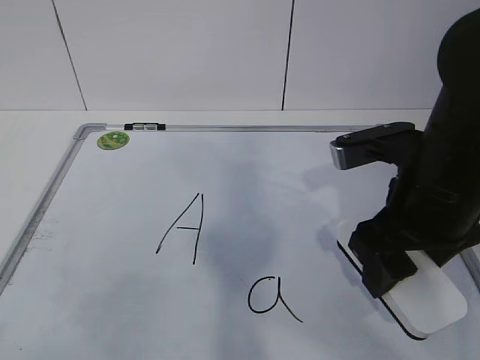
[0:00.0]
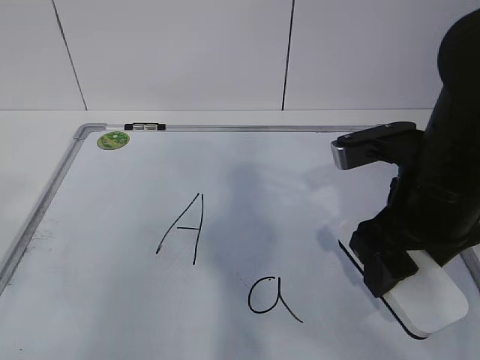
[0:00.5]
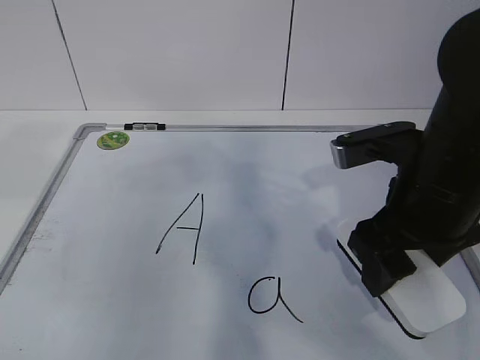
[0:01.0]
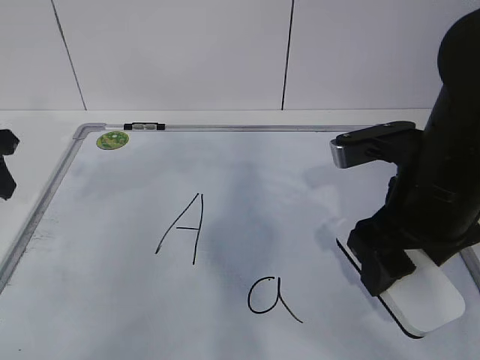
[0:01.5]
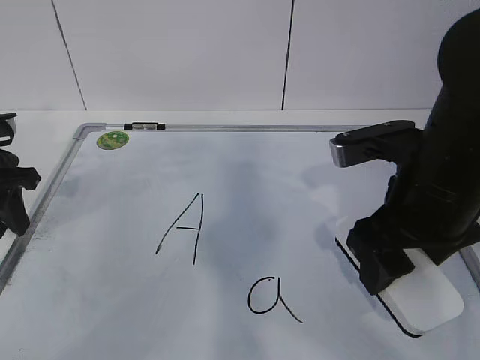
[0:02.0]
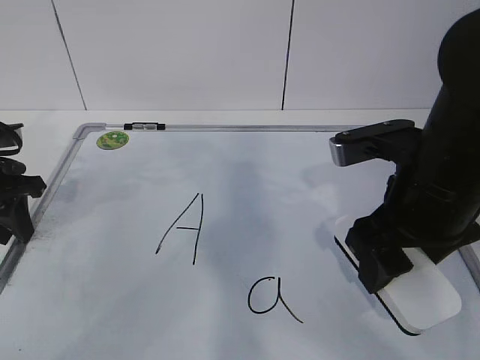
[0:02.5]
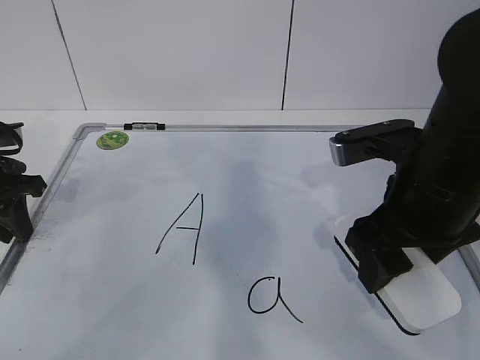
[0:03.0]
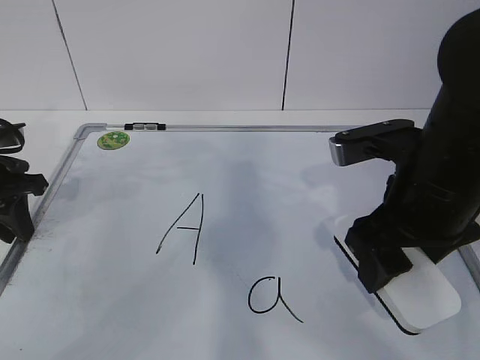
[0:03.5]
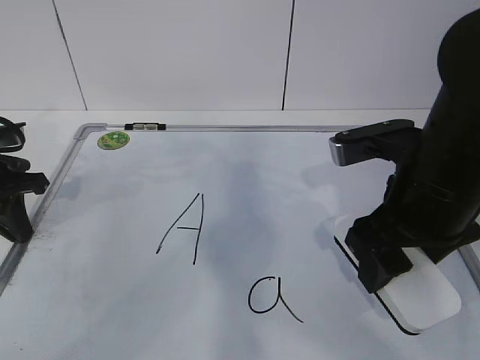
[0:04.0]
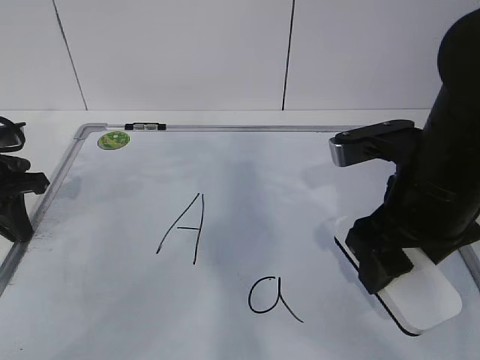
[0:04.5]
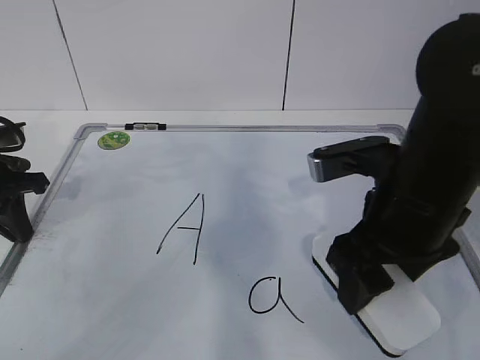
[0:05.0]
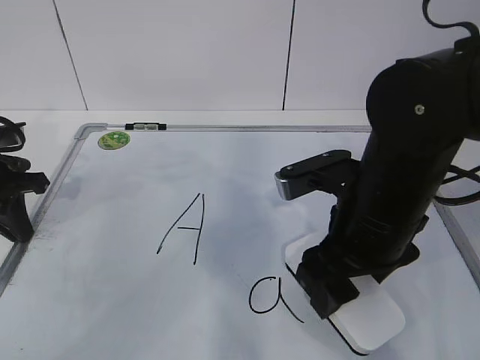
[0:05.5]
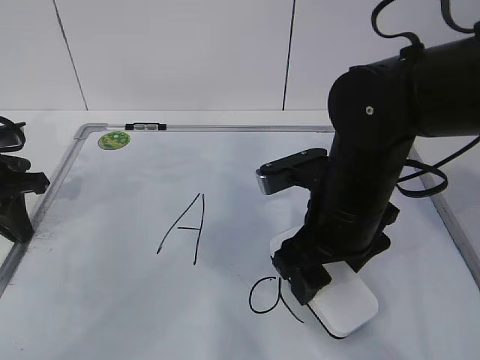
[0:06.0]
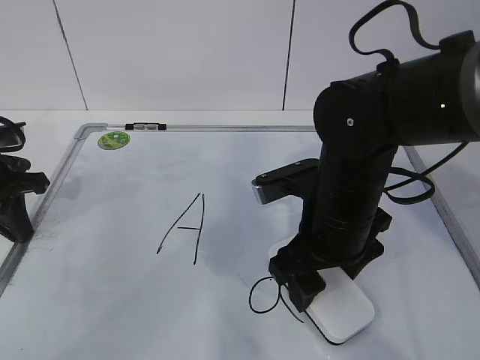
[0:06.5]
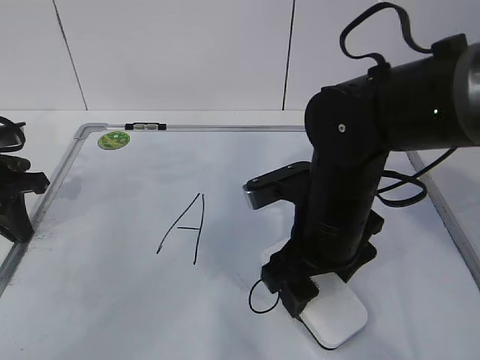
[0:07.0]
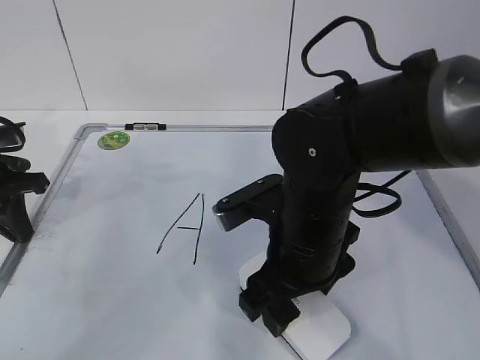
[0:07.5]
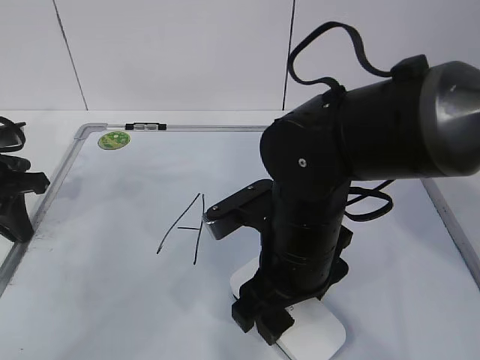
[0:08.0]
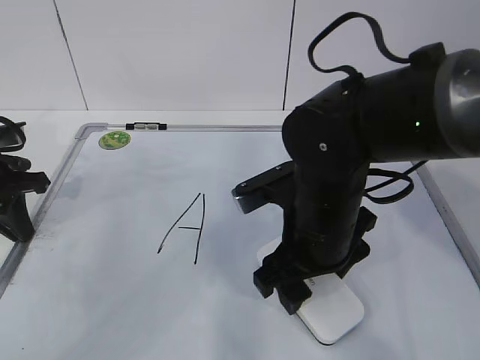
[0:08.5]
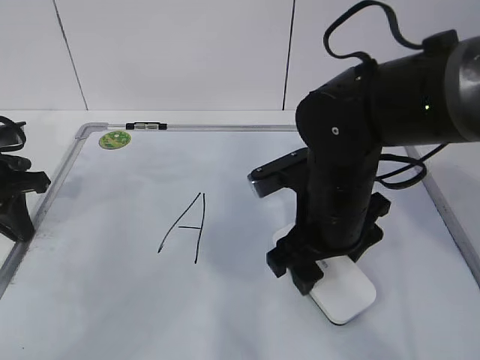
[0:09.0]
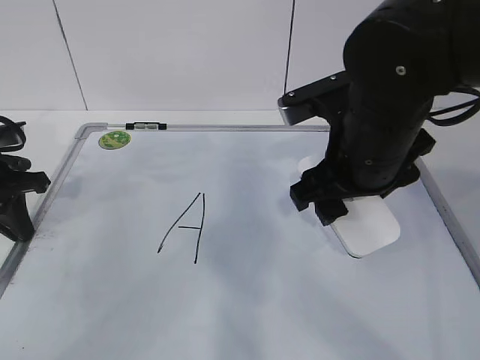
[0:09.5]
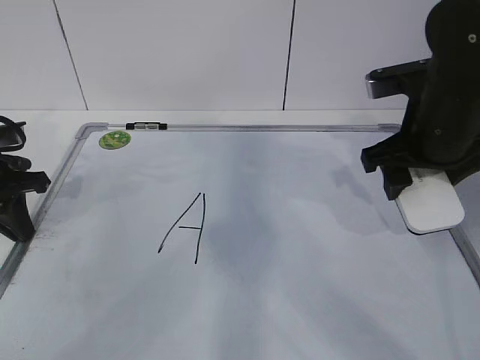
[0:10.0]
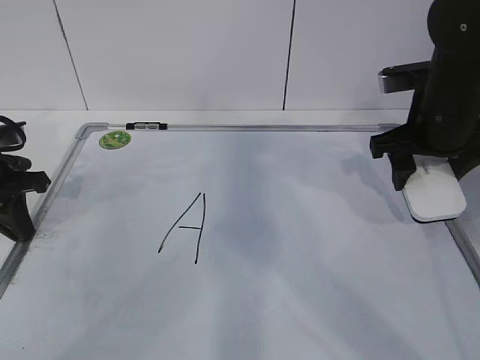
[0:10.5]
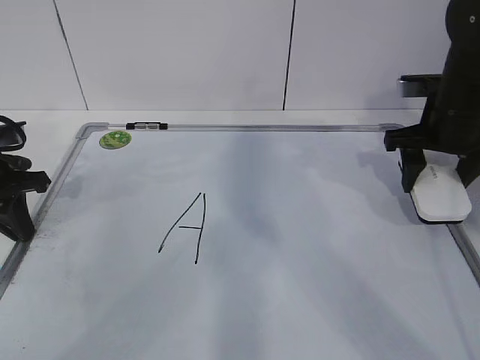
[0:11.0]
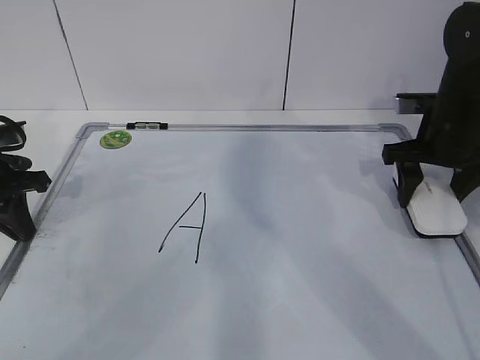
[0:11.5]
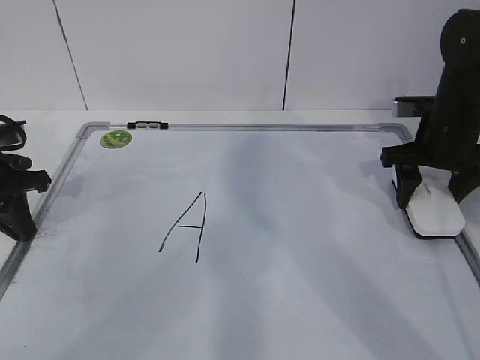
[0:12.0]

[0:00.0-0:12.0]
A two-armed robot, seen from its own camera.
Task of the whole recording: pick up the eraser on the blackboard and erase the letter "a".
Step, 0:02.0 to 0:05.5: Erase the letter a with your right hand.
Step, 0:06.0 to 0:09.5: Put down the eraser with your right hand.
0:00.0 to 0:02.0: The left gripper is displaced forward by approximately 35 cm.
0:02.0 to 0:04.0: The left gripper closes.
0:04.0 to 0:06.0: The right gripper shifts roughly 5 cm to the left.
0:06.0 to 0:08.0: The right gripper moves some 5 cm.
0:08.0 to 0:10.0: The right gripper shifts about 20 cm to the right, forward and upward.
0:10.0 to 0:12.0: The right gripper shifts approximately 10 cm forward, to the right and downward.

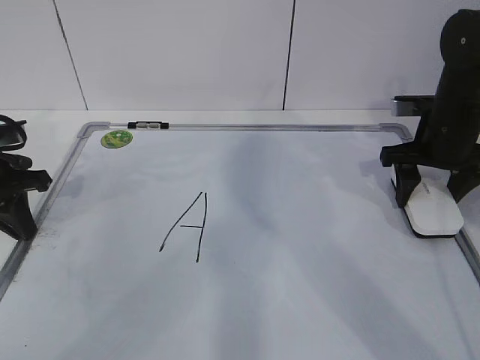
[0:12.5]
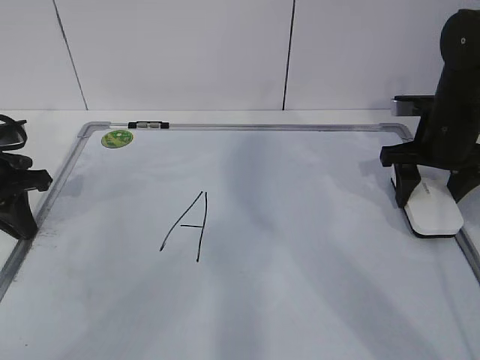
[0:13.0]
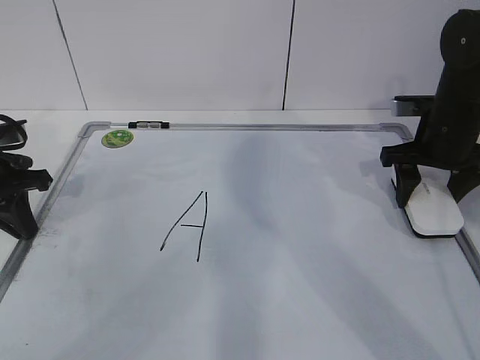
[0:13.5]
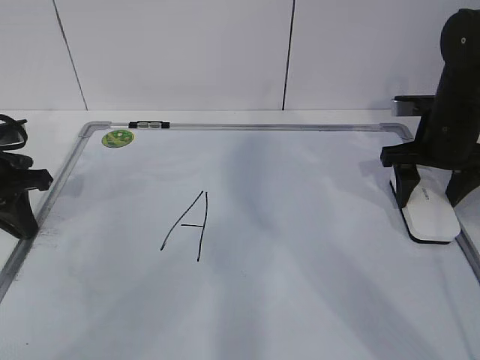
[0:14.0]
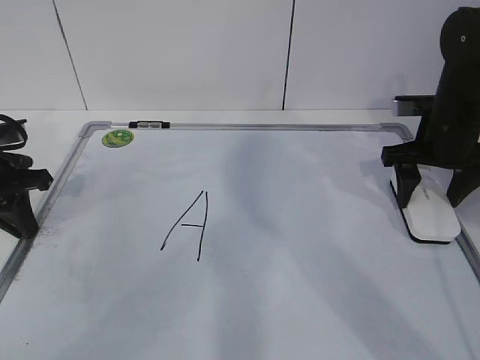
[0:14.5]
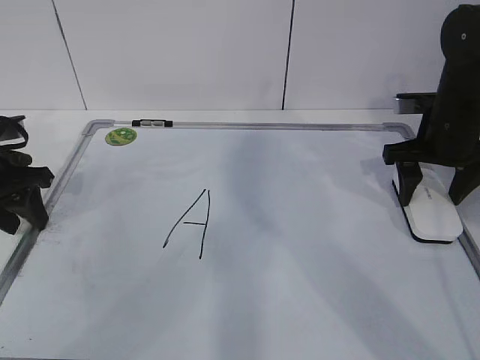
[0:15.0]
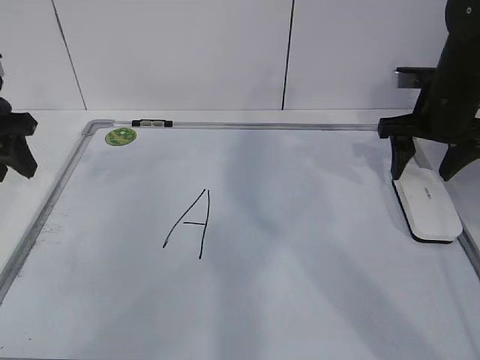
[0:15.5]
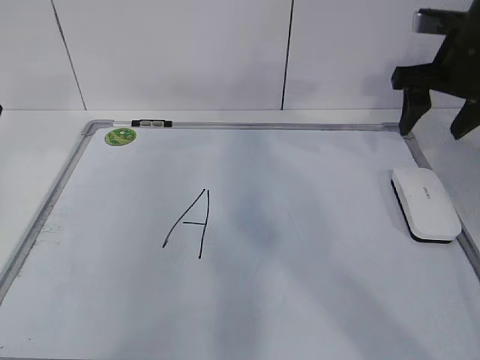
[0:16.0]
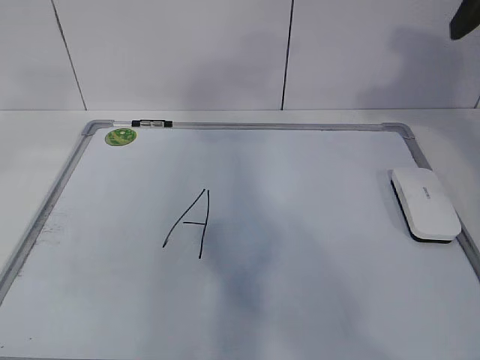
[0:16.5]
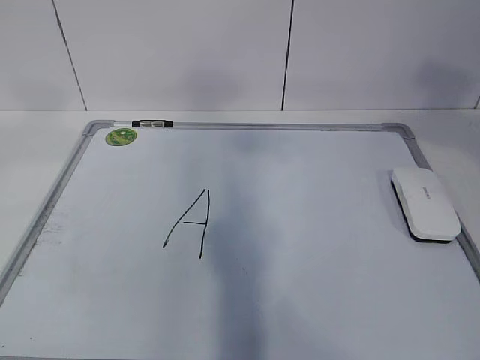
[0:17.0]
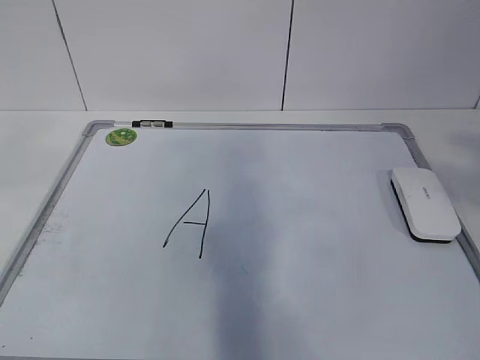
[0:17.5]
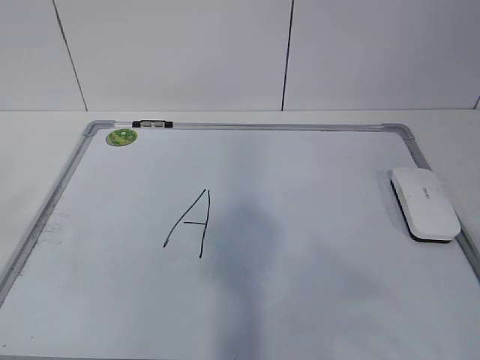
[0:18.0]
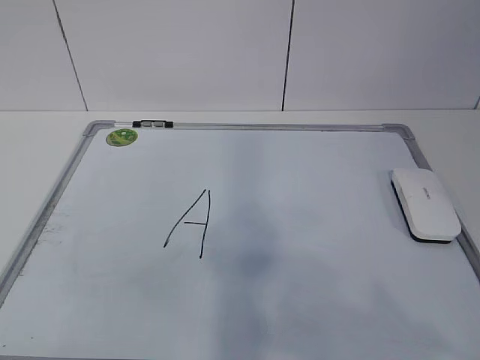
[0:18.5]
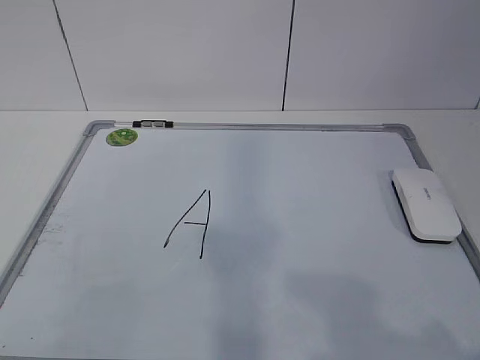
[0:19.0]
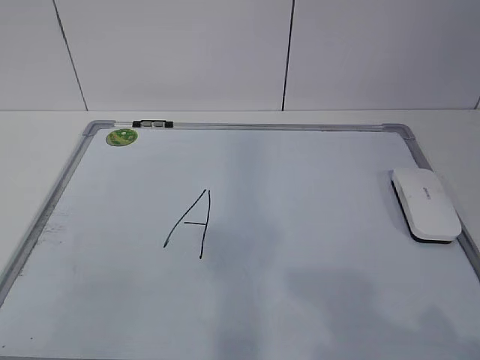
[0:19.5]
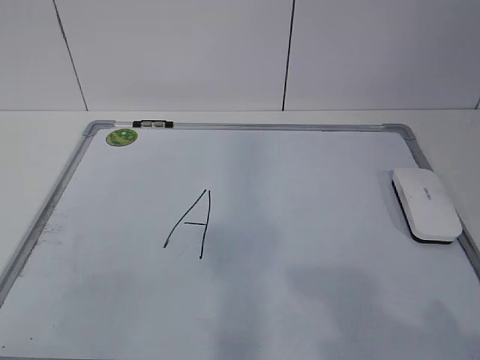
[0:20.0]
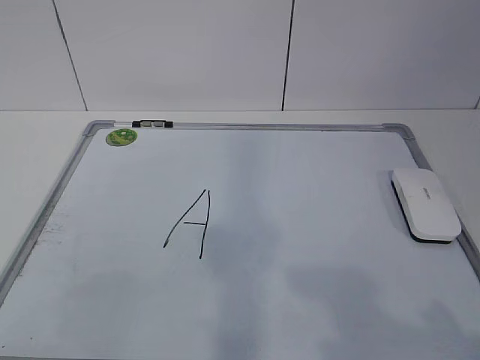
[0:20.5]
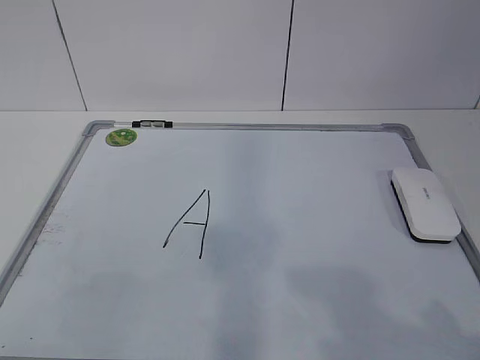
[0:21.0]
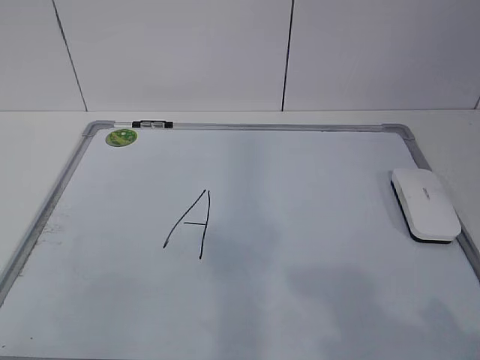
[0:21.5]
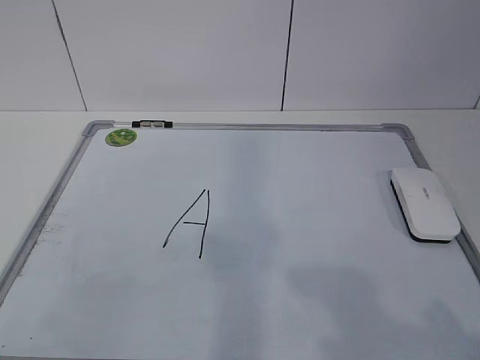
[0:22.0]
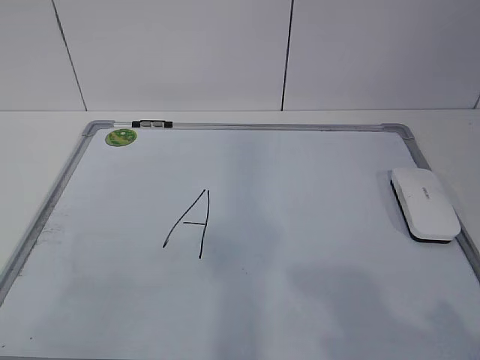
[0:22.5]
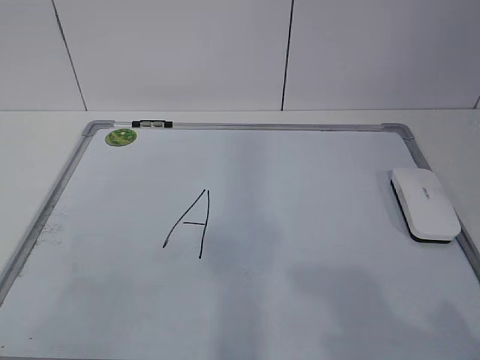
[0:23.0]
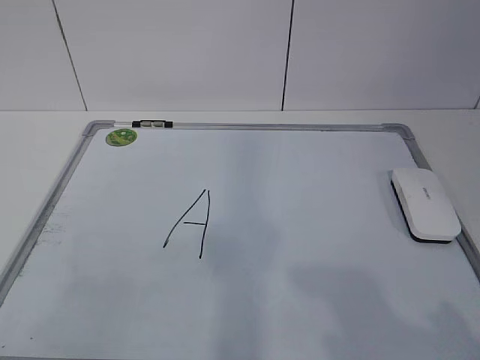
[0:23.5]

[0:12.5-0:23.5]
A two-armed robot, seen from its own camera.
Task of the whole recording: pick up the eraser on the blackboard and erase the letter "a".
0:12.5 to 0:14.5: Both grippers stay about where they are.
0:14.5 to 0:16.0: The right gripper heads upward, covering roughly 10 cm. Meanwhile the left gripper travels upward by approximately 15 cm, and opens up.
0:16.0 to 0:18.0: The left gripper is displaced backward and upward by some 35 cm. The right gripper travels backward by some 40 cm.
0:18.0 to 0:20.0: The two grippers go about 15 cm downward.
0:20.0 to 0:21.5: The two grippers keep their place.
